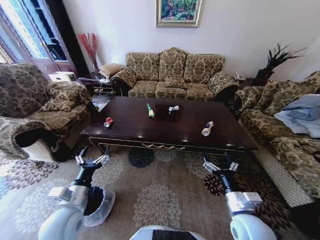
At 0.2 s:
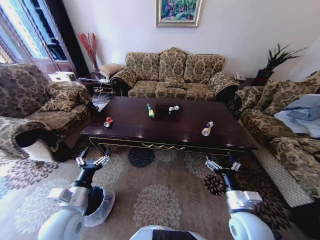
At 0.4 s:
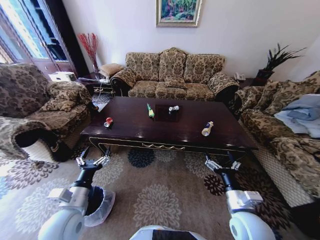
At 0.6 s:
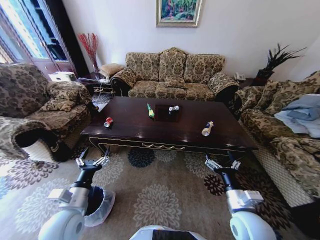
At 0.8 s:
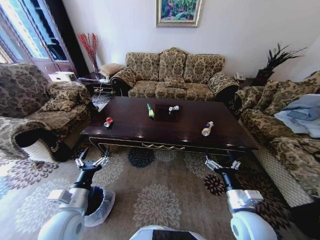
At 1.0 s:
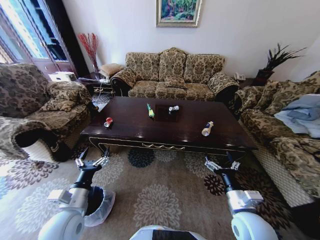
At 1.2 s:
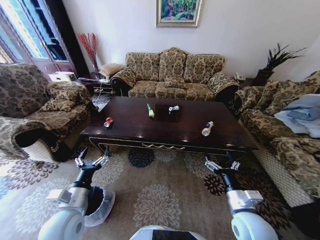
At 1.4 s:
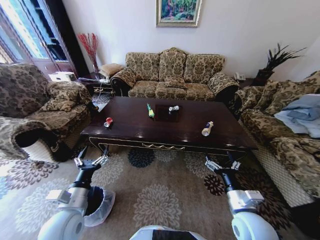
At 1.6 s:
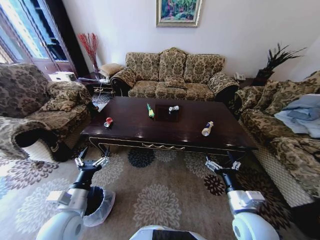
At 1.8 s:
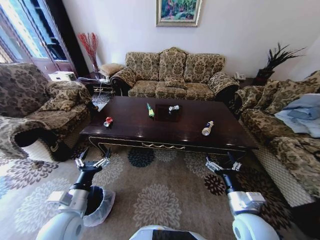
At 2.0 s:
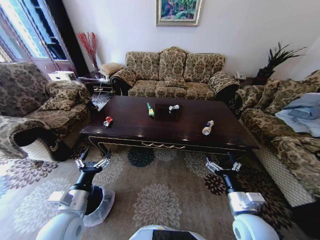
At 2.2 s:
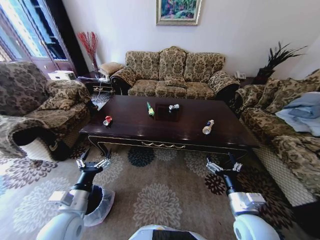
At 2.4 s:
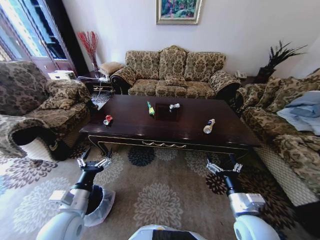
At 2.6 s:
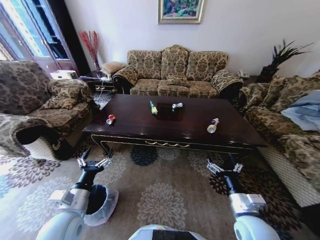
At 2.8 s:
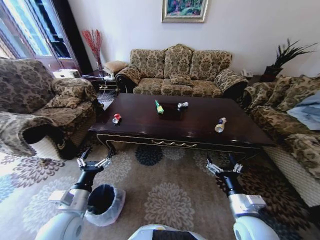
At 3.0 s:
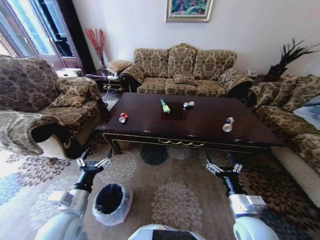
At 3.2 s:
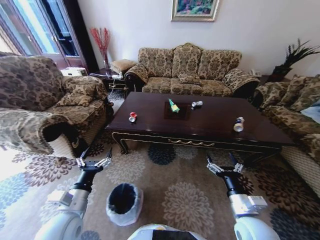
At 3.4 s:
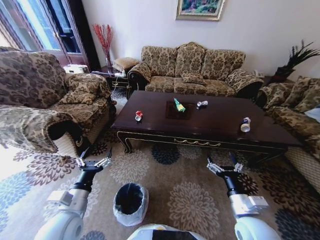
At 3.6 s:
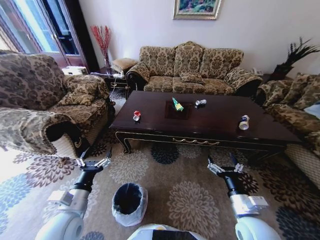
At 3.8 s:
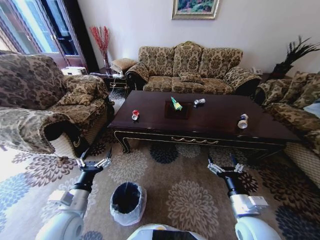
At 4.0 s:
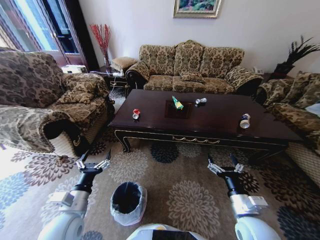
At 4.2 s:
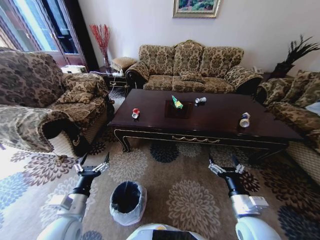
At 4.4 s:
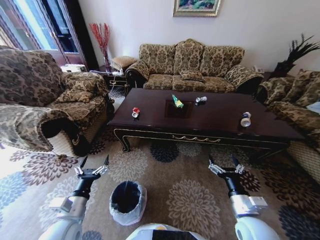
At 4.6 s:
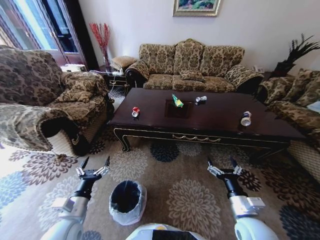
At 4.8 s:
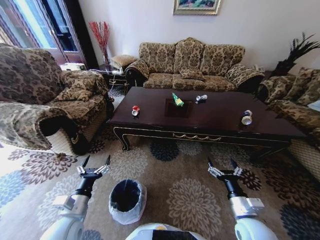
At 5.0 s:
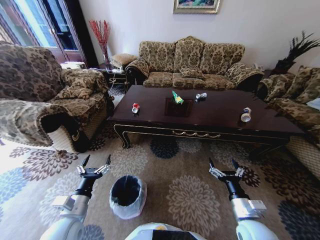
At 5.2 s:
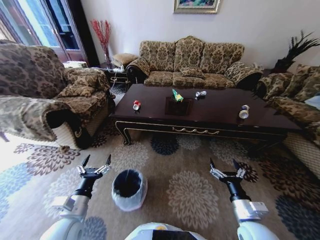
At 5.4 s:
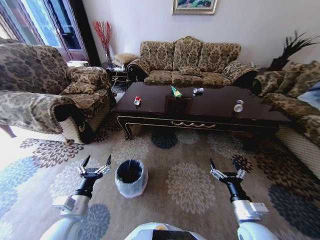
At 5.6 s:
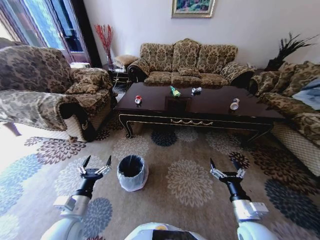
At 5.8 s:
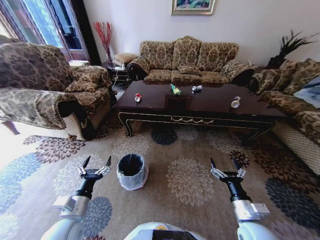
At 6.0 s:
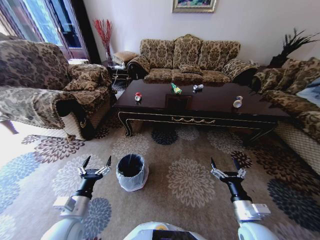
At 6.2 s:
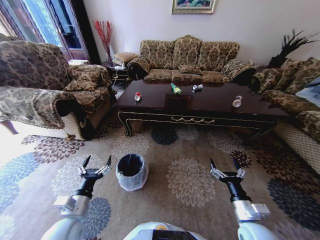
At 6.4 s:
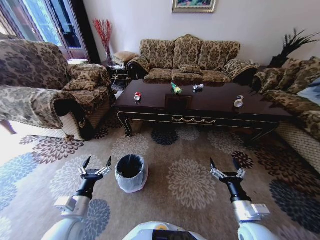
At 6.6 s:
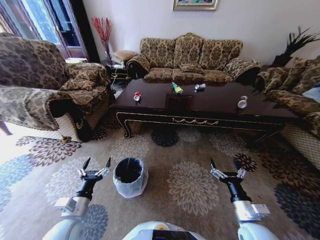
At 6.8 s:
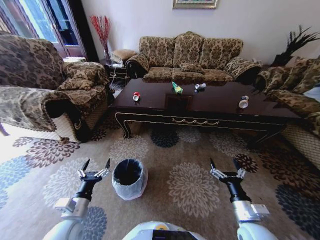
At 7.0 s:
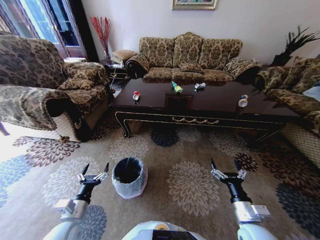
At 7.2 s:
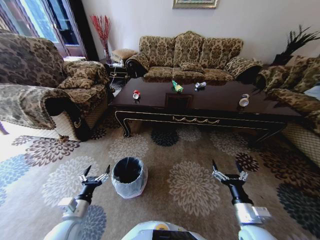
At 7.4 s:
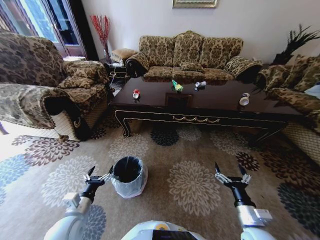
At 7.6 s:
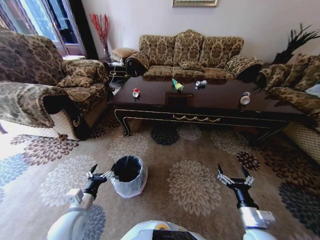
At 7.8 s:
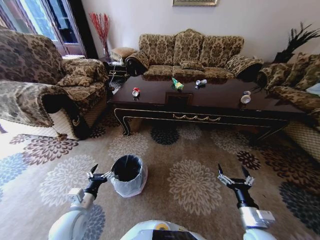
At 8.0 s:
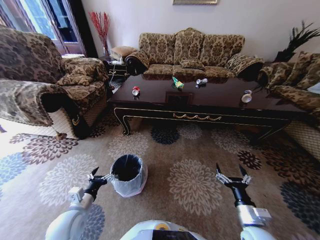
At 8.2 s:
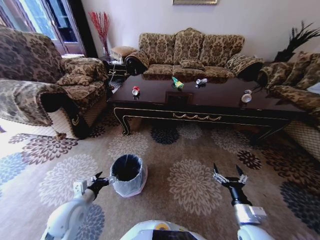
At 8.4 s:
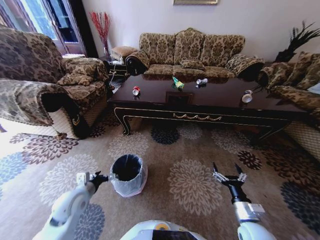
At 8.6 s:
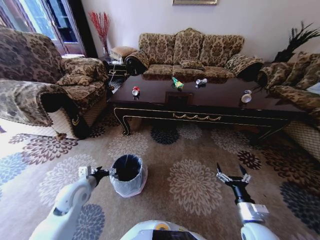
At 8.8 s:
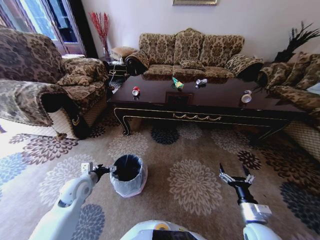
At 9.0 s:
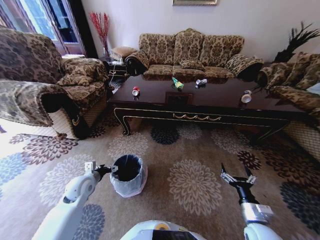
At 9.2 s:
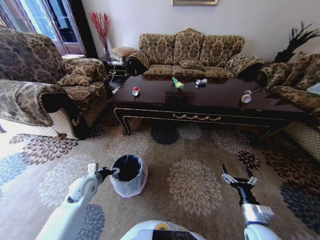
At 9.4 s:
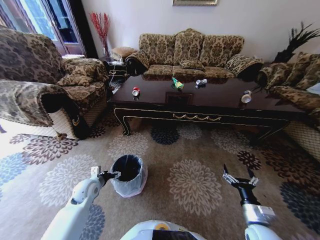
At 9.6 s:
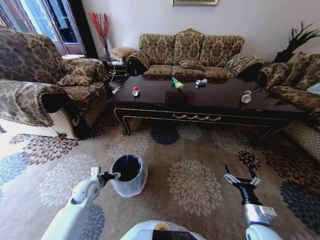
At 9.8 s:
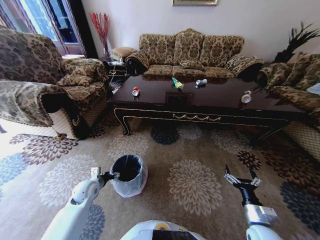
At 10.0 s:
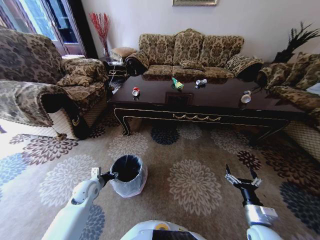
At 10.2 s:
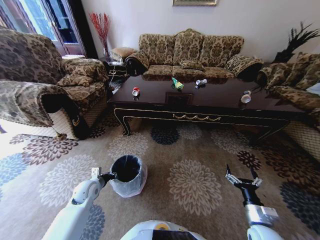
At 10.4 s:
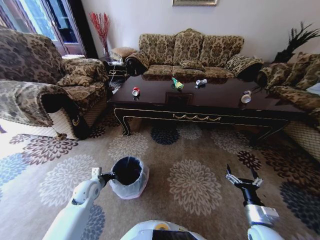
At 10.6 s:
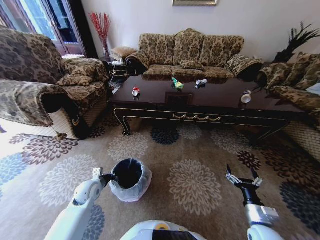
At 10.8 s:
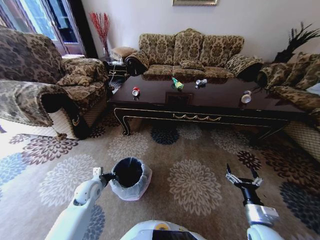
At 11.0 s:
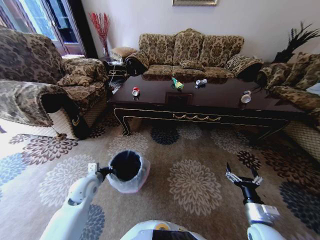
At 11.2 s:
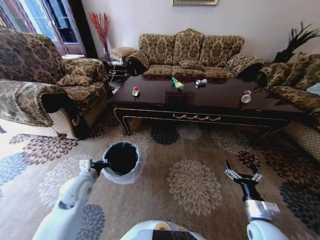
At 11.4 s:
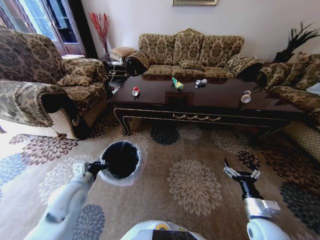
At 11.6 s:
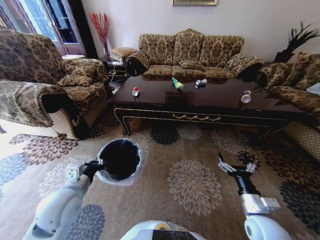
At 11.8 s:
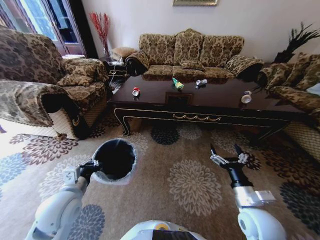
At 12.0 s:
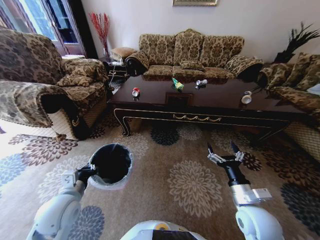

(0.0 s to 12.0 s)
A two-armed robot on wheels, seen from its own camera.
Task of the whole recording: Move to the front of the table and place the trash on the table into the trash bin.
7.6 s - 9.0 s: The left gripper travels forward by some 15 cm.
9.0 s - 10.4 s: The left gripper is displaced downward by approximately 5 cm, and closes up.
10.4 s - 12.0 s: The right gripper goes roughly 10 cm upward and to the left; the left gripper heads upward and backward, covering about 15 cm.

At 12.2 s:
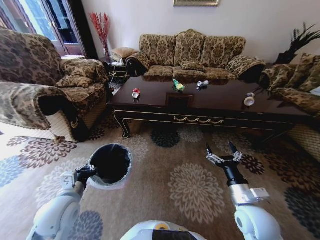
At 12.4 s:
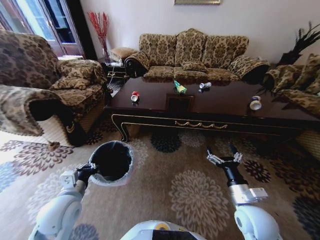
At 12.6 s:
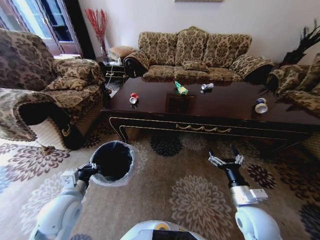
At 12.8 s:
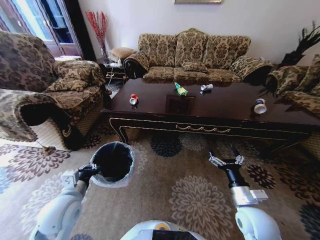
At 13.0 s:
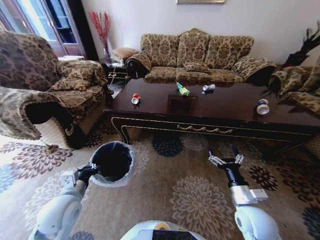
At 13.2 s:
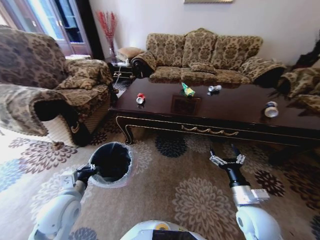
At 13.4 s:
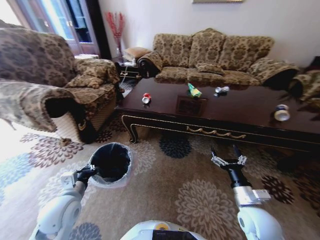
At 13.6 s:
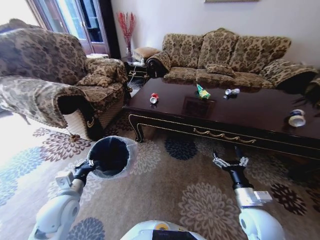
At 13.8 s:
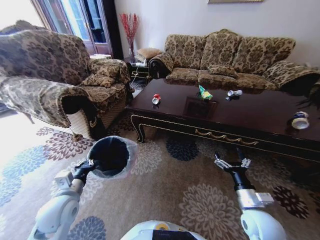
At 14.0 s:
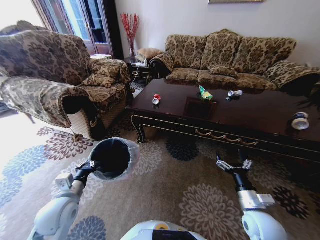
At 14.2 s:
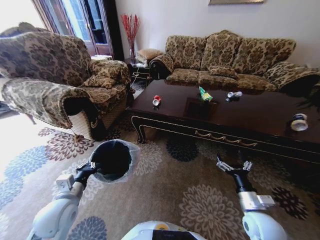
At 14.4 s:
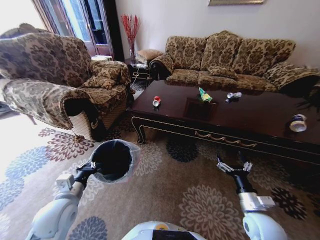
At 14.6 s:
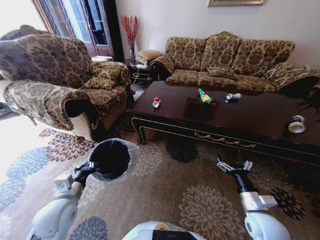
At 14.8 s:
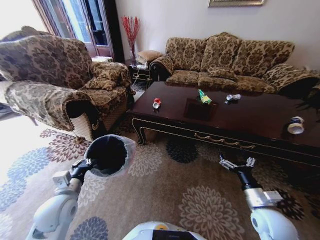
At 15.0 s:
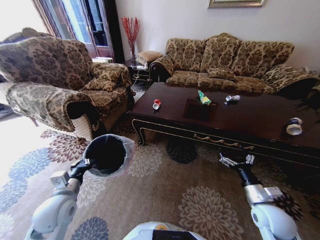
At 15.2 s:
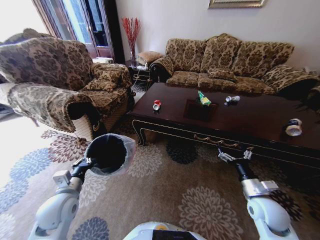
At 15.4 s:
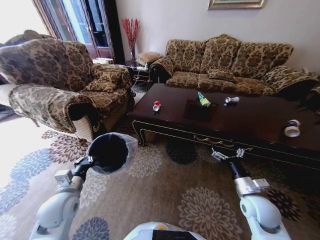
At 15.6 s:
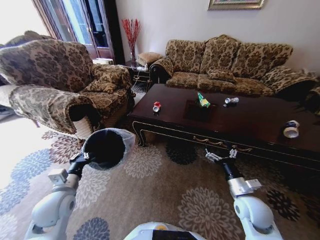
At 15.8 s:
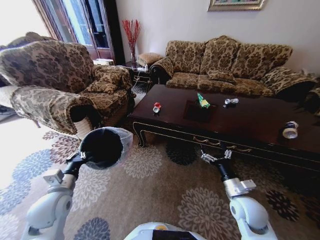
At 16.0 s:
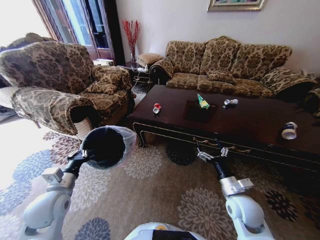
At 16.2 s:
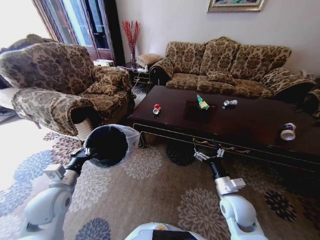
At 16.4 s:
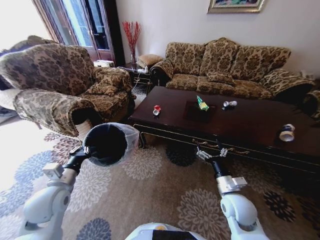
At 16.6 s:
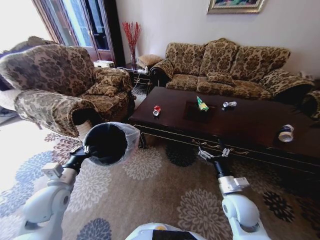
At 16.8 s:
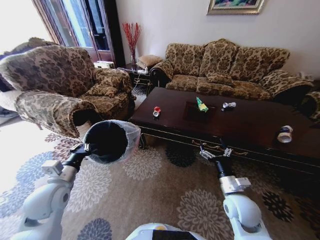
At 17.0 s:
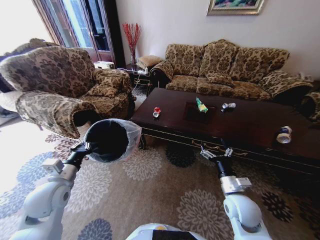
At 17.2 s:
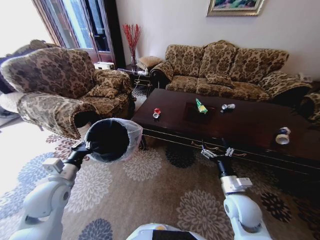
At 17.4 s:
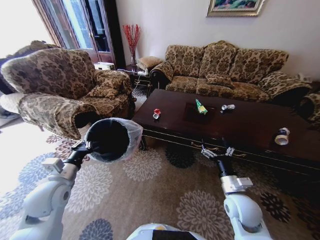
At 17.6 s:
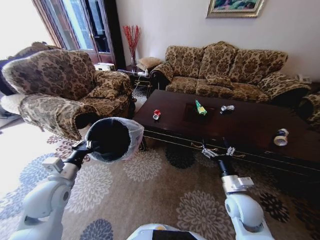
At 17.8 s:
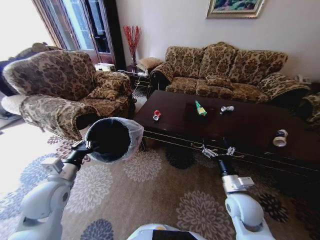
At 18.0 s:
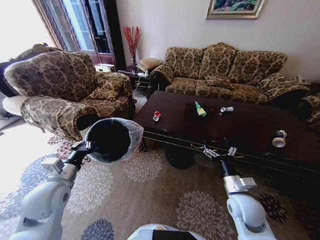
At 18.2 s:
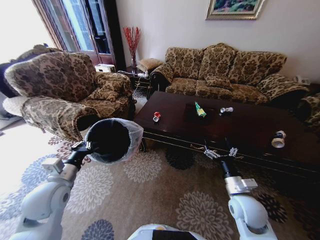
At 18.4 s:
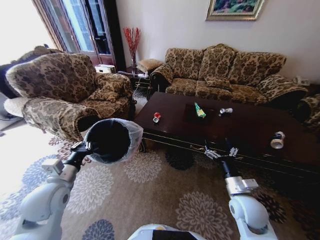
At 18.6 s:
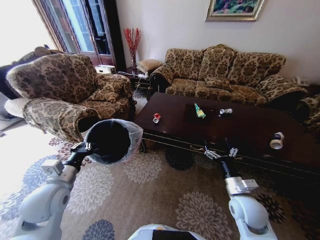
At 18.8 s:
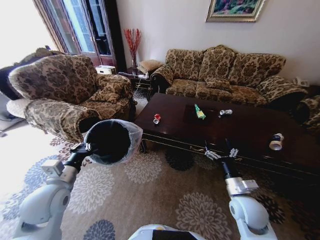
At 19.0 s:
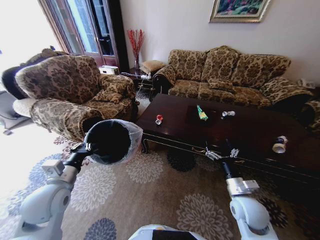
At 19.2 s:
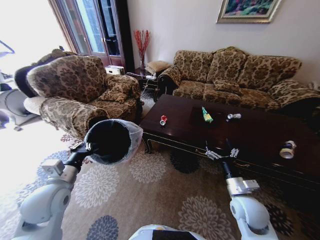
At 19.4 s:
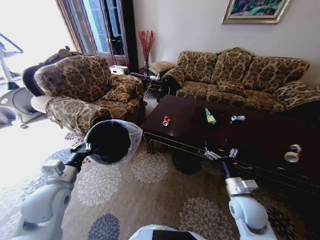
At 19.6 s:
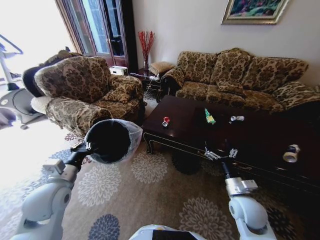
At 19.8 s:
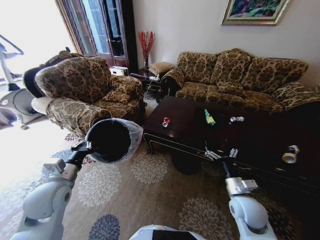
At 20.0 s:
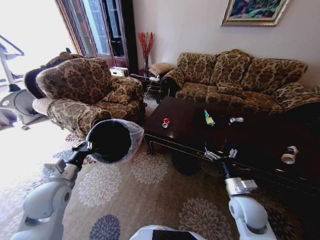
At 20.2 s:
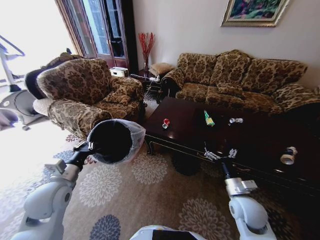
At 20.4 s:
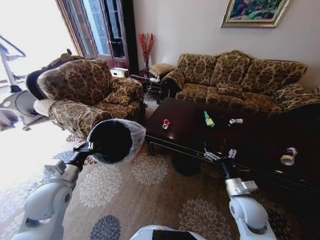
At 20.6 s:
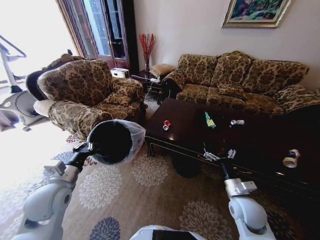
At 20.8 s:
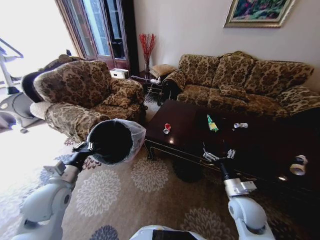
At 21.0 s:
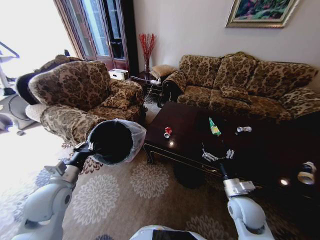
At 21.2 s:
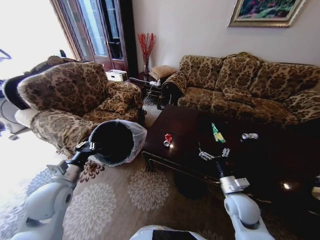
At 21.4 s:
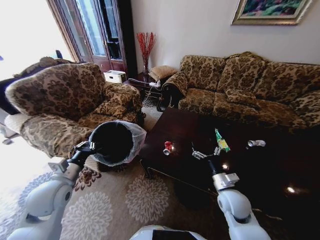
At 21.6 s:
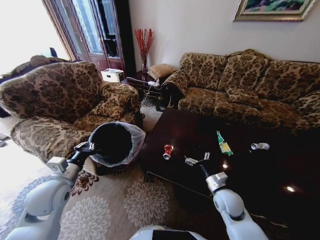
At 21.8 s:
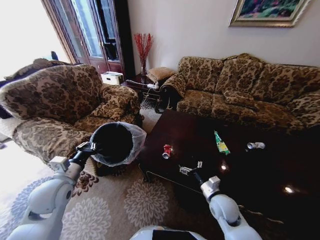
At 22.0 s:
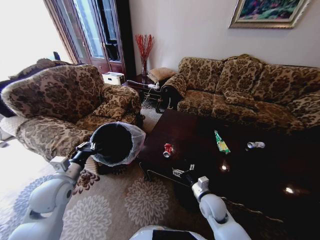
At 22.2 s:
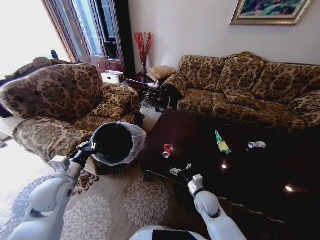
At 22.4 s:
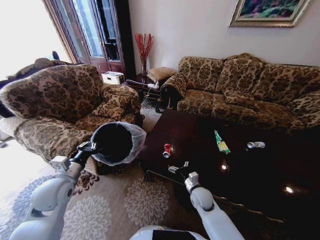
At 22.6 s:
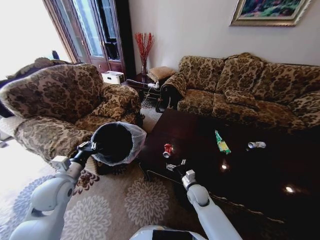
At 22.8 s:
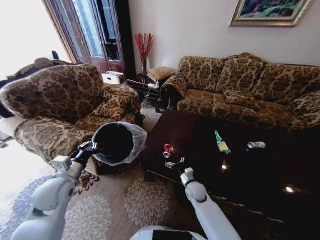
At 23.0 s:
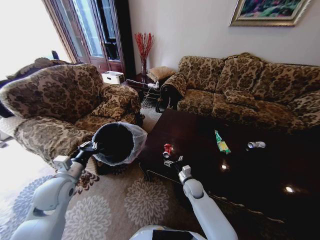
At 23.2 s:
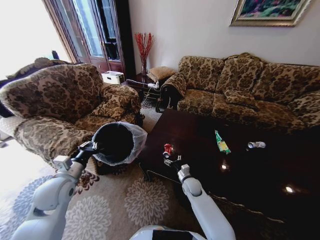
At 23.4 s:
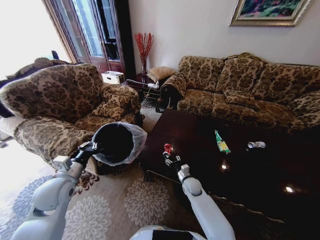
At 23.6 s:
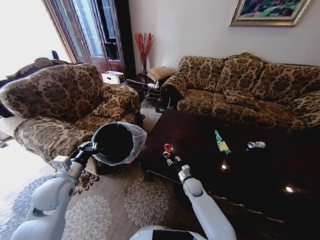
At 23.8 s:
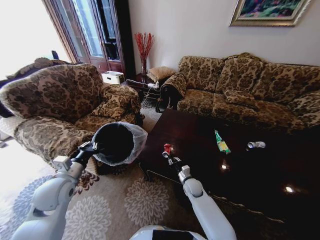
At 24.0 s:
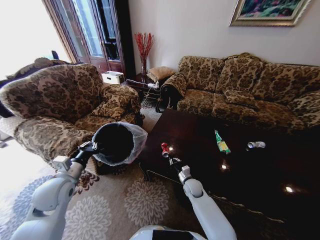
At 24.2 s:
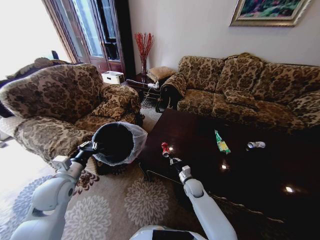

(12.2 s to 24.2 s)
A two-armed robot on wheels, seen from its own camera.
Task of the whole recording: Move to the front of the table and place the trash on the table into the trash bin.
13.8 s - 15.2 s: The right gripper ends up some 5 cm from where it was.
15.2 s - 16.6 s: The right gripper moves to the left, roughly 10 cm.
21.2 s - 22.6 s: The right gripper shifts about 20 cm downward, to the left and forward.
22.6 s - 24.2 s: The right gripper closes.
